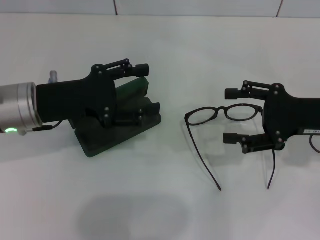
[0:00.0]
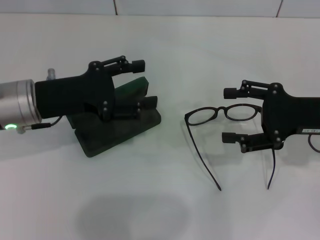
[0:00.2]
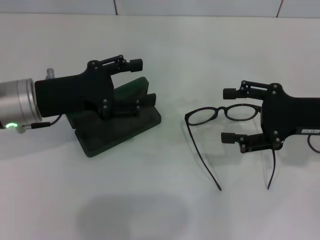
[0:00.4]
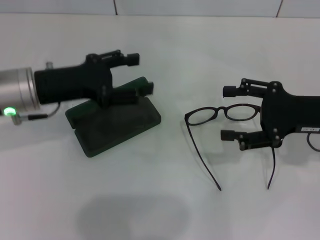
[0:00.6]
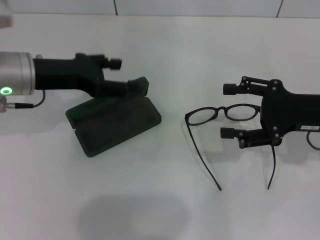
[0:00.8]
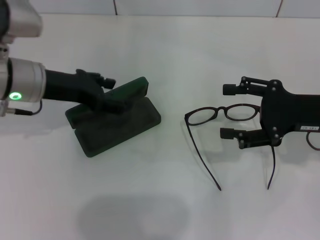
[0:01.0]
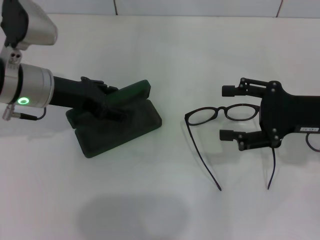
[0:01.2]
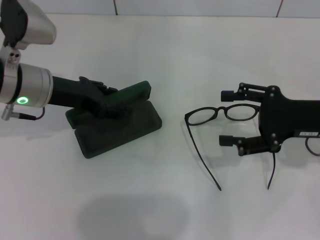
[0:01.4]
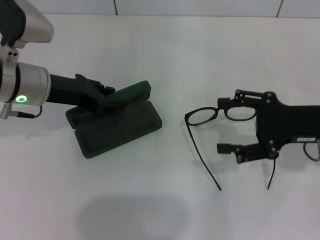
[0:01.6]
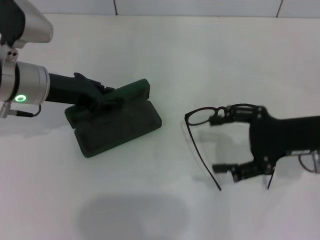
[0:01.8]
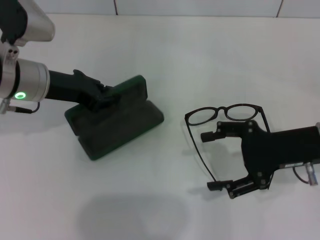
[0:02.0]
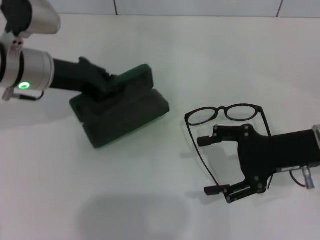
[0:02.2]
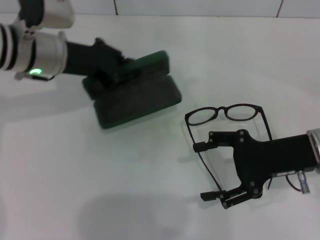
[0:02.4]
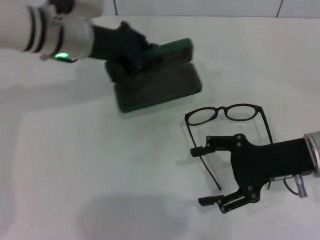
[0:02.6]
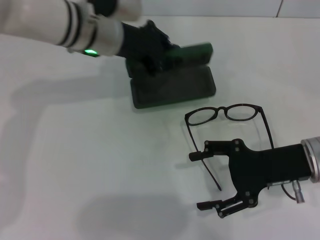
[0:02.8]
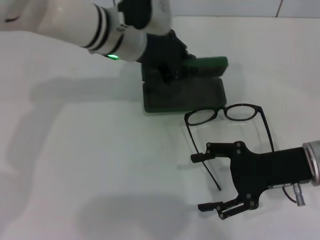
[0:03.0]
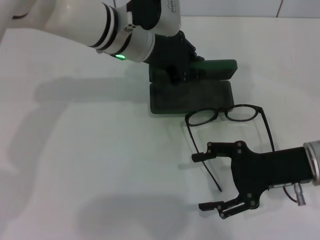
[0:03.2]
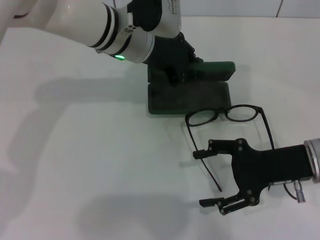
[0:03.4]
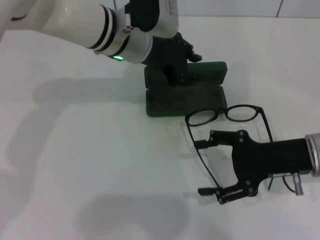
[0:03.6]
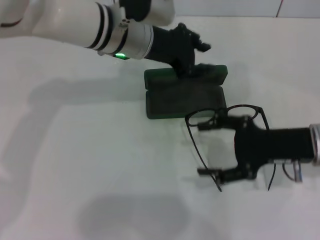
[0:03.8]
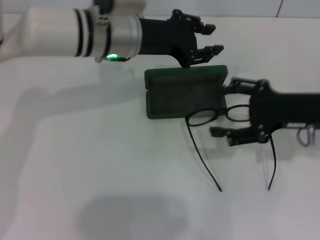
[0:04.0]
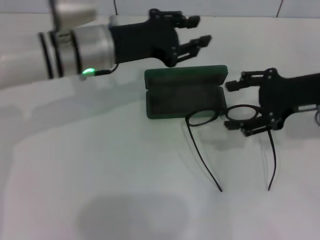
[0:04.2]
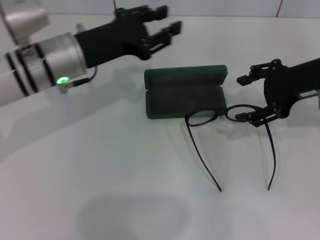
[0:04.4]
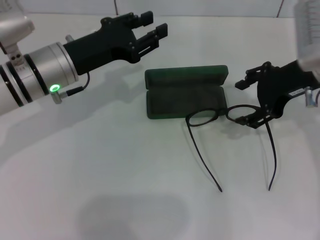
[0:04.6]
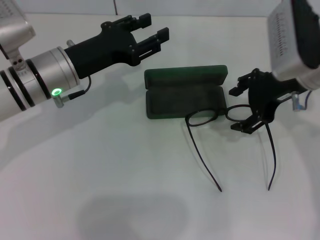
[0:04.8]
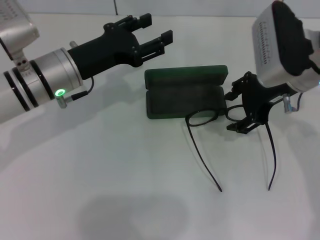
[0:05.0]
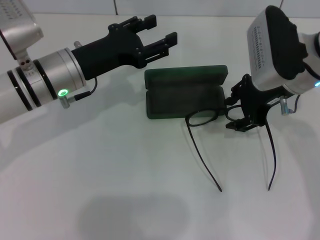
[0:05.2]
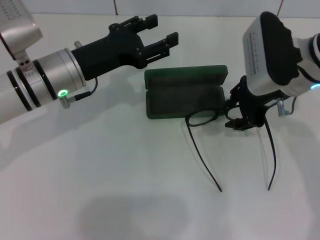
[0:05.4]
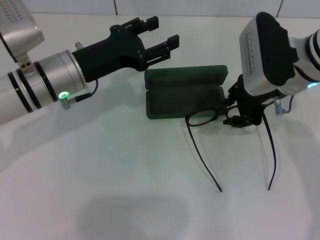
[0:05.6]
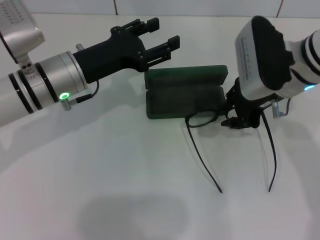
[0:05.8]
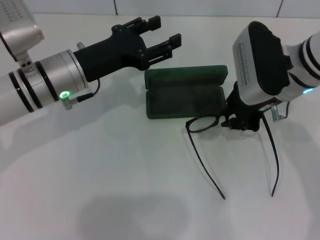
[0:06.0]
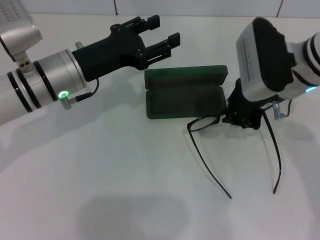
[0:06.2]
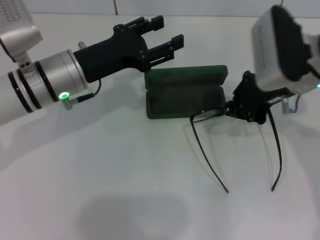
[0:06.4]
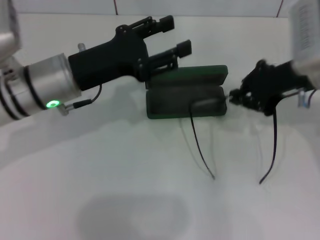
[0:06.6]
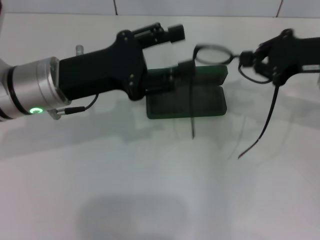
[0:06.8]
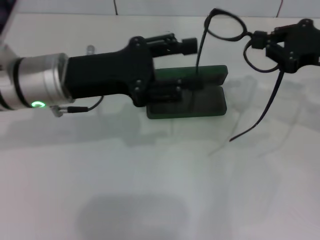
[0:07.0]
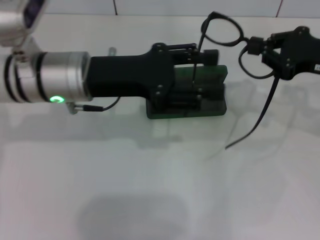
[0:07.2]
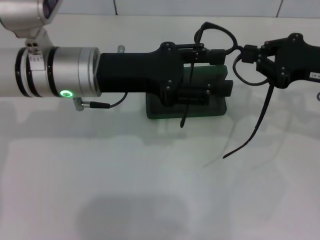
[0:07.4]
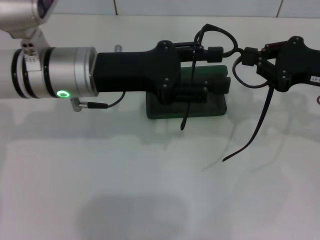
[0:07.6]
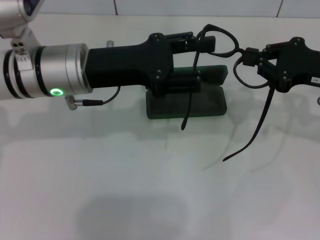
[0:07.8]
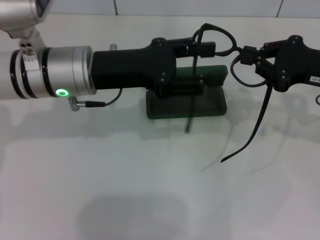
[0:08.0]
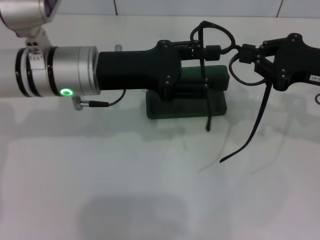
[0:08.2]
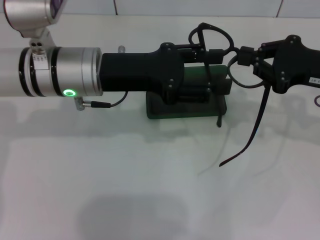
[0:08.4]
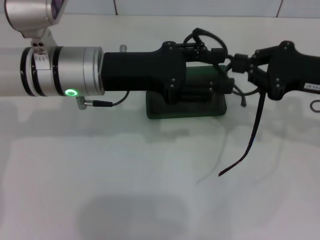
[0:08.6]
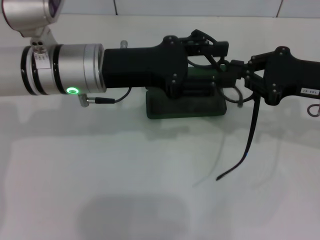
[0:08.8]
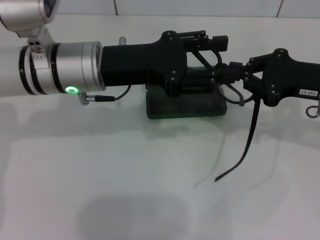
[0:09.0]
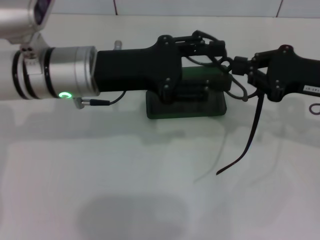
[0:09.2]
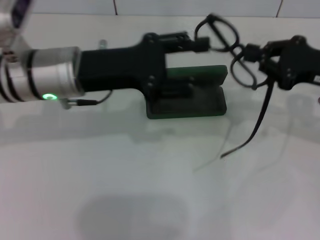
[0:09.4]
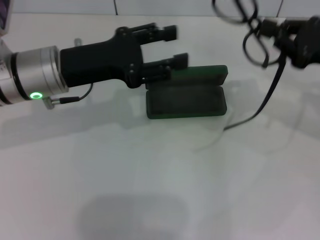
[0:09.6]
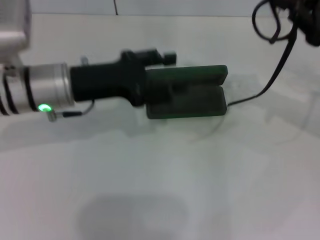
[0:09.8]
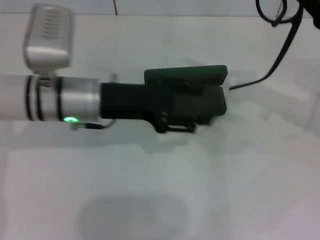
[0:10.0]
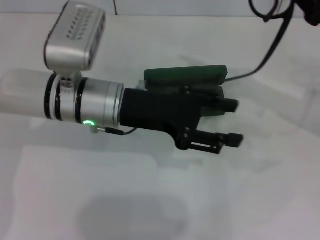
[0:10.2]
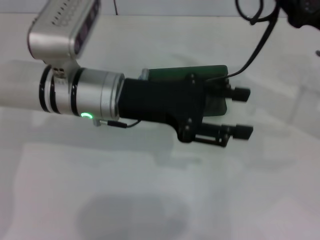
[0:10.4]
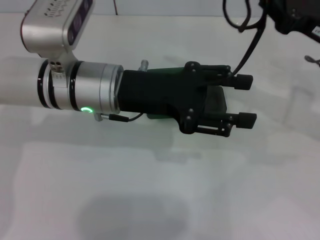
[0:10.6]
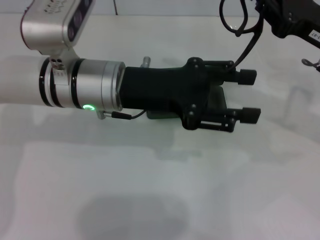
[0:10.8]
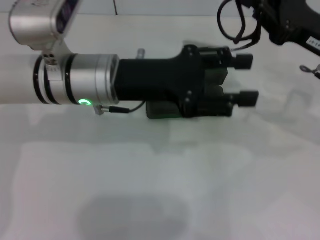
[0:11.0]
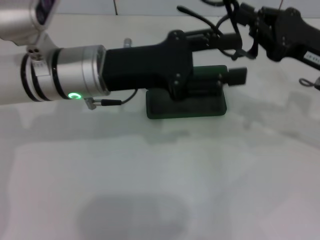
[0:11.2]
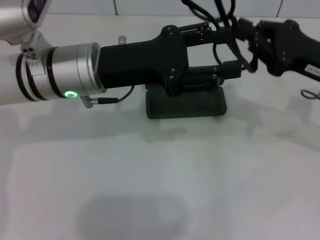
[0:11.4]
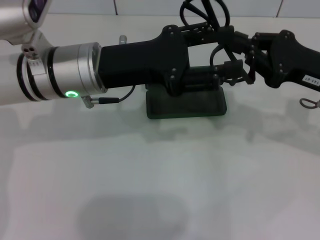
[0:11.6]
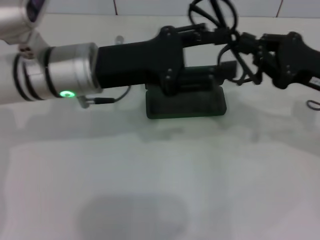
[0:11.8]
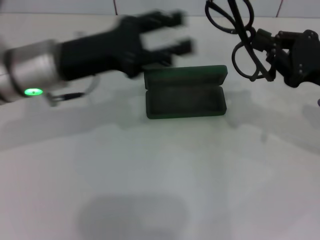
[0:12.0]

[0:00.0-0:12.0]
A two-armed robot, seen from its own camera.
Step, 0:00.0 to 0:01.8: Grab the glasses case with your left hand.
Step, 0:02.0 to 0:03.6: Place the glasses case in the center of the table with your left hand.
Step, 0:03.8 to 0:06.0: Grab the eyeglass frame with your right hand.
Step, 0:06.2 to 0:11.6: Lift the glasses with your right hand.
0:01.6 to 0:03.0: The right gripper moves approximately 5 cm, while the left gripper is displaced to the right and forward by about 15 cm, and closes up.
0:03.0 to 0:04.4: The left gripper goes some 10 cm to the left and backward; the right gripper goes approximately 15 cm upward and forward.
0:04.4 to 0:06.0: The left gripper opens; the right gripper heads to the left, covering about 10 cm, and closes up.
0:06.0 to 0:07.6: The left gripper ends up roughly 5 cm from where it was, while the right gripper goes about 10 cm to the right, and closes its fingers.
0:07.6 to 0:09.0: There are only small adjustments of the grippers.
0:10.4 to 0:12.0: The left gripper goes about 5 cm to the left.

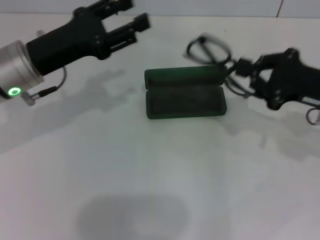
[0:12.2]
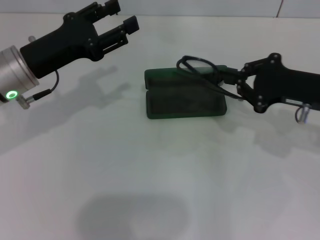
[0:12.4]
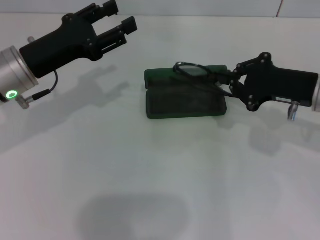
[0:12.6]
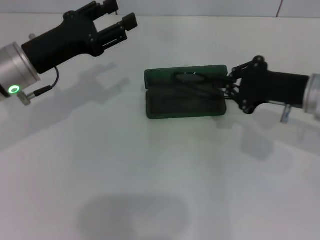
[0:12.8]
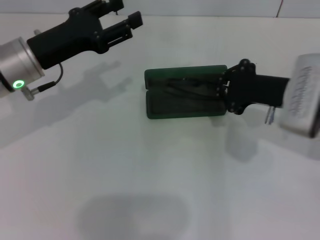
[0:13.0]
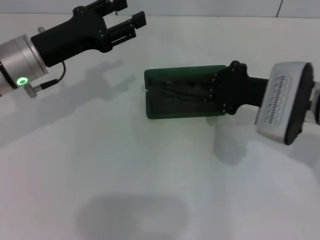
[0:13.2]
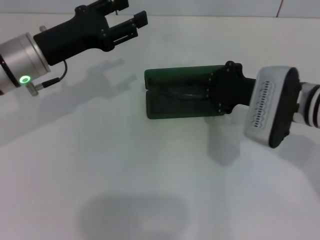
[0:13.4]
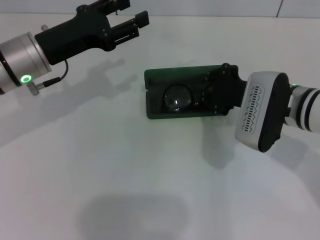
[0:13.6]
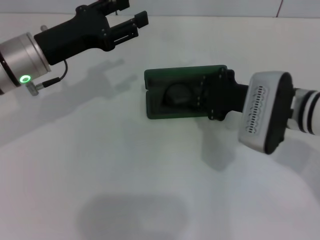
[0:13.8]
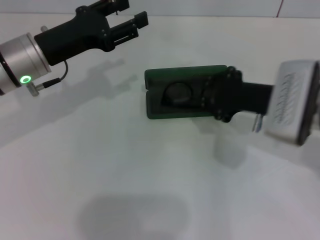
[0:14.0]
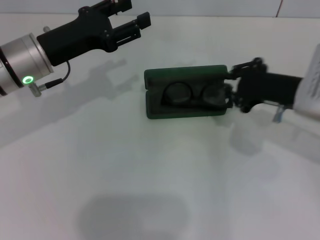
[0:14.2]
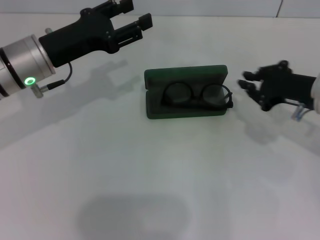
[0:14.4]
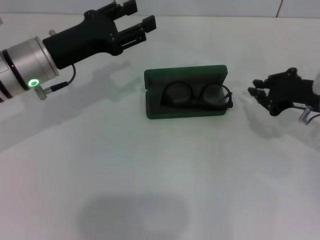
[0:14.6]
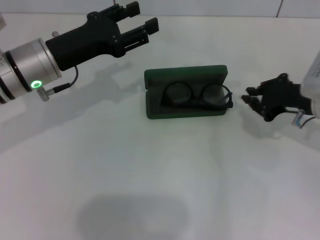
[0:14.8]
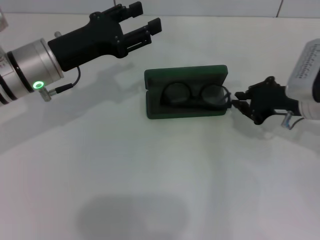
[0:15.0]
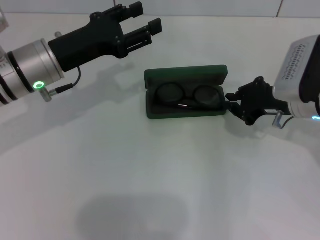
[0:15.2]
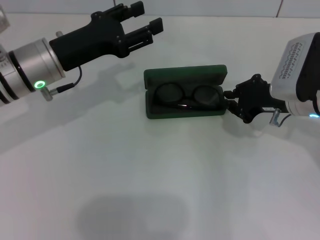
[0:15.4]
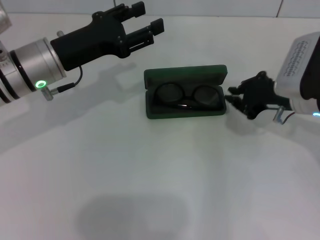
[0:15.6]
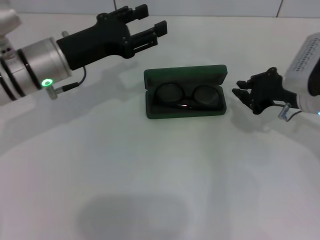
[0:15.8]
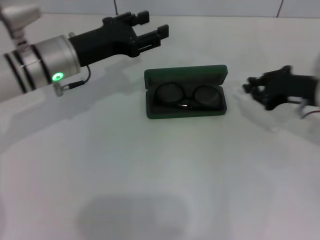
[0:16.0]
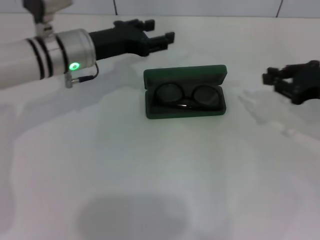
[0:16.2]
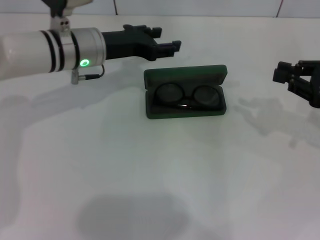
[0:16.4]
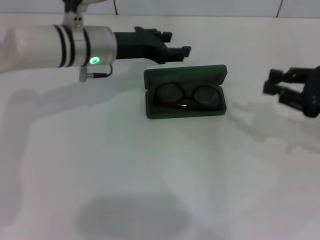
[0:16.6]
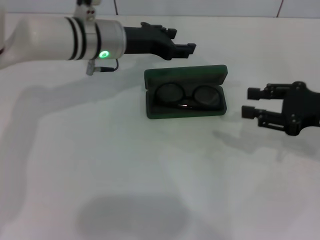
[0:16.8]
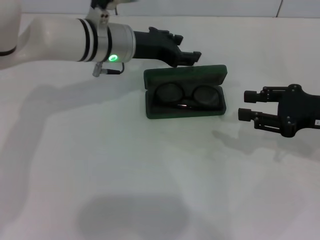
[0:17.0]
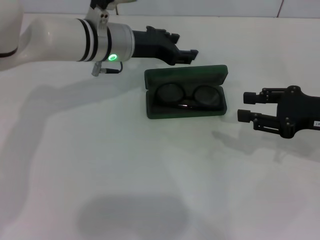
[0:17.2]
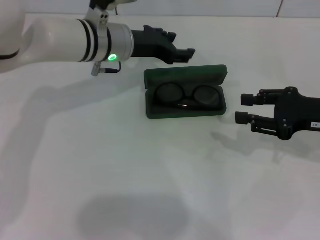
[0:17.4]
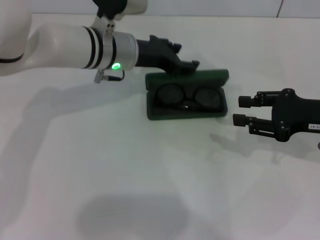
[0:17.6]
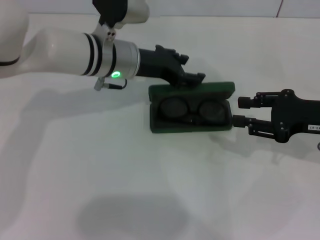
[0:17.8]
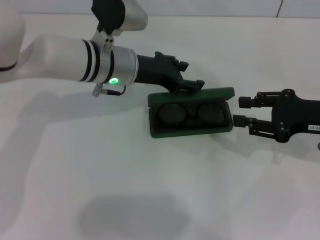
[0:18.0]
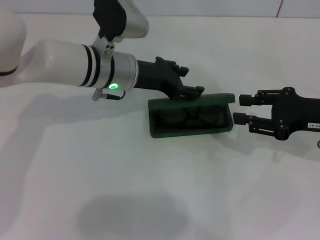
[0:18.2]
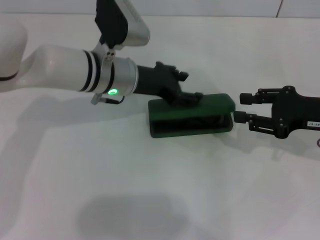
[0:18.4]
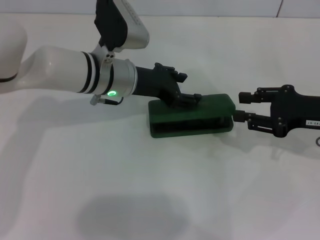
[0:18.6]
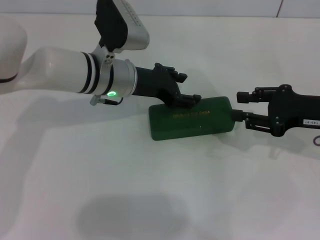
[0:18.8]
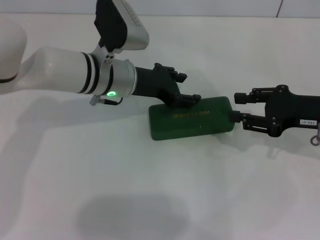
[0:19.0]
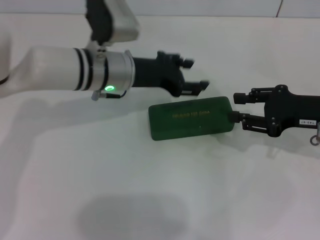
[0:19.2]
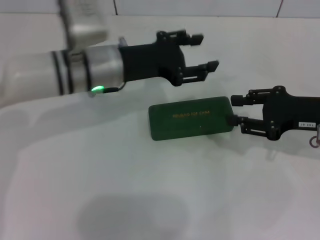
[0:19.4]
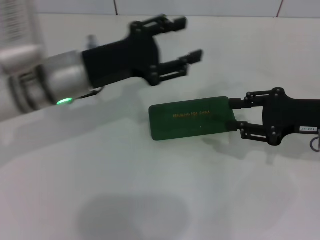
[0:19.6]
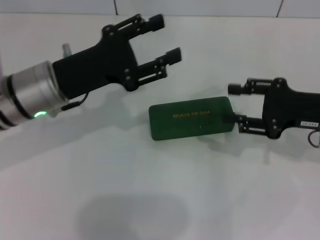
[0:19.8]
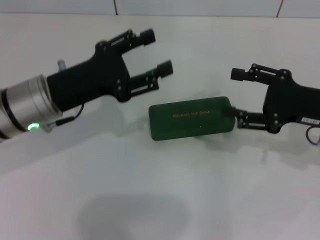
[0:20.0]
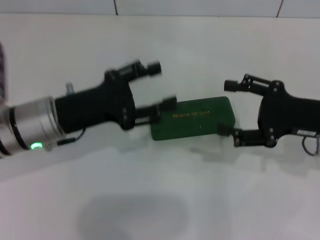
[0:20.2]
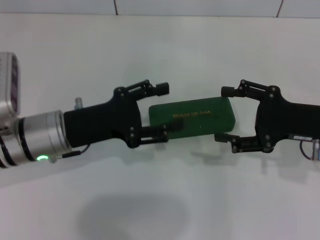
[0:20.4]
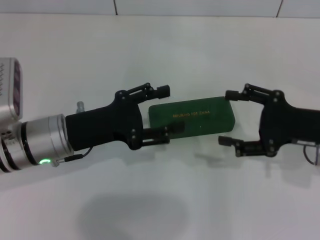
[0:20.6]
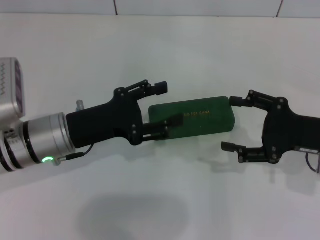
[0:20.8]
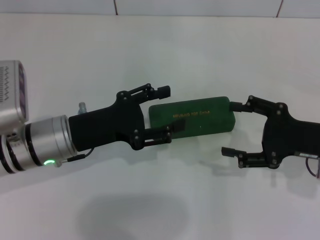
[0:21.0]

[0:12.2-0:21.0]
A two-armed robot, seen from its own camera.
Step, 0:12.2 to 0:15.4: Put the glasses into the case with your right hand.
Step, 0:15.6 to 0:18.6: Close the glasses case with your left hand.
0:12.2 to 0:13.6: The right gripper shifts approximately 10 cm to the left.
0:15.2 to 0:16.6: The right gripper goes about 10 cm to the right. Meanwhile the left gripper shifts approximately 10 cm to the right and forward.
0:16.6 to 0:18.0: The right gripper opens up.
0:18.0 to 0:19.6: The left gripper shifts approximately 10 cm backward and to the left.
0:19.6 to 0:21.0: The left gripper shifts about 10 cm downward and backward; the right gripper opens.

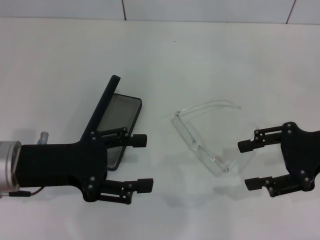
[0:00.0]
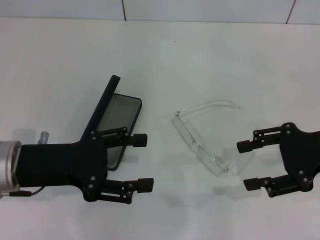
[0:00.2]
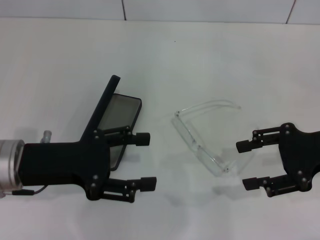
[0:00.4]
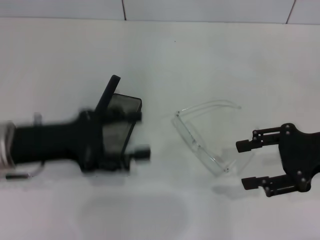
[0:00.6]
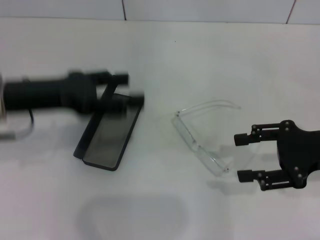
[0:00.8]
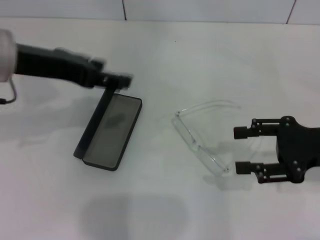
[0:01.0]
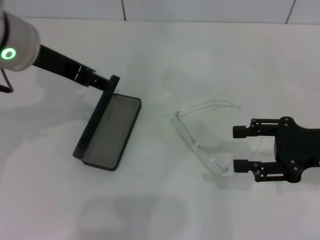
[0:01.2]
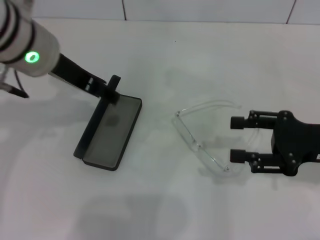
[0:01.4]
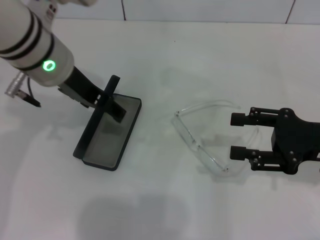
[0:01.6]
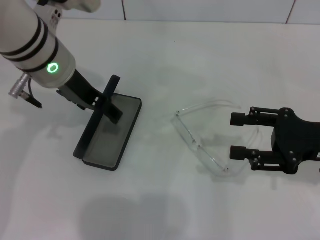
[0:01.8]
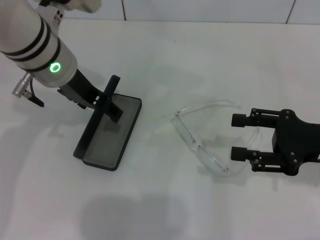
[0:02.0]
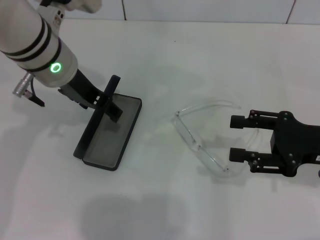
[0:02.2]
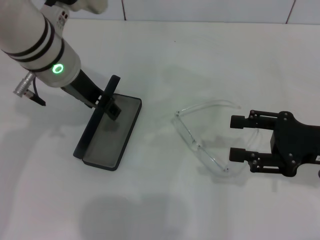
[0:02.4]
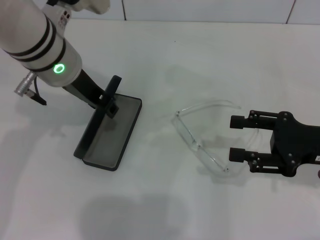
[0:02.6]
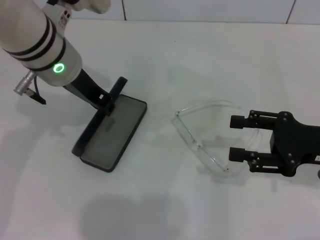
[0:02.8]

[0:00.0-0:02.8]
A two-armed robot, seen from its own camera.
Step, 0:00.0 to 0:02.8: Grab the glasses case with your left hand.
0:00.0 to 0:01.4: The left gripper shifts approximately 15 cm upward, forward and to the right.
0:01.4 to 0:02.8: The left gripper closes.
